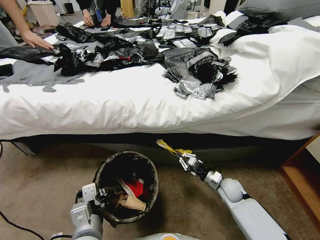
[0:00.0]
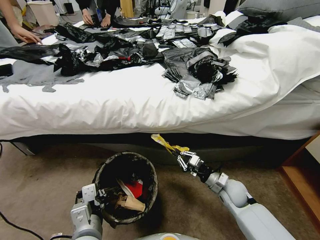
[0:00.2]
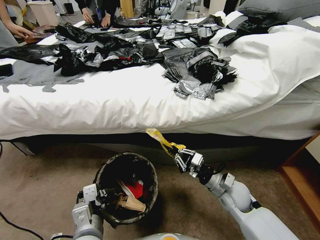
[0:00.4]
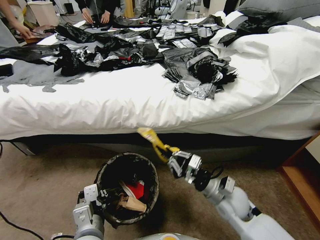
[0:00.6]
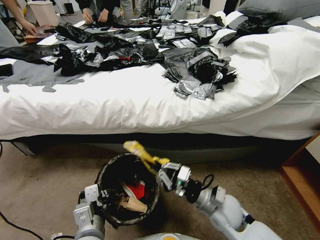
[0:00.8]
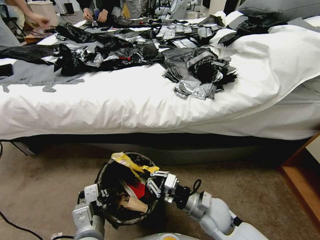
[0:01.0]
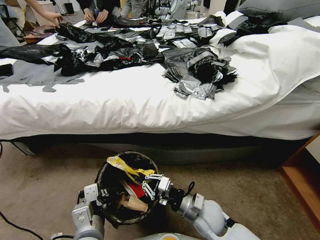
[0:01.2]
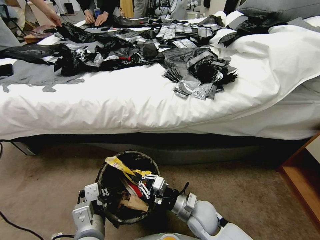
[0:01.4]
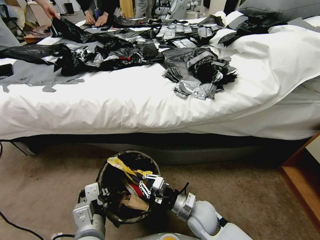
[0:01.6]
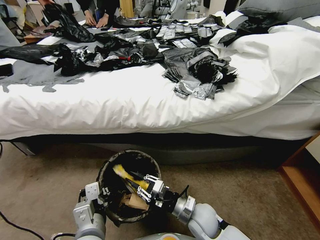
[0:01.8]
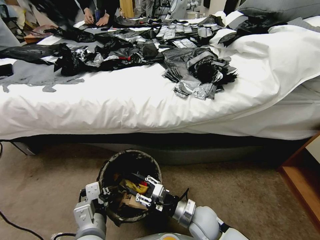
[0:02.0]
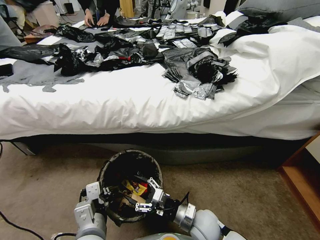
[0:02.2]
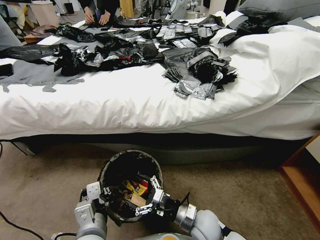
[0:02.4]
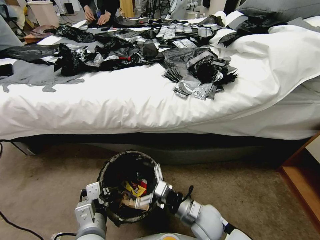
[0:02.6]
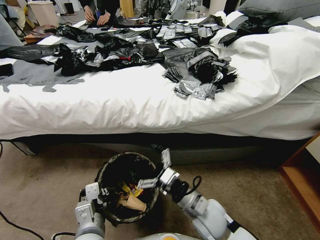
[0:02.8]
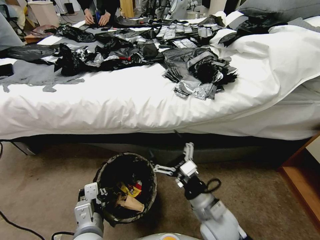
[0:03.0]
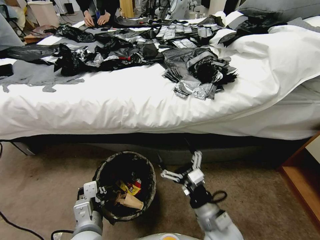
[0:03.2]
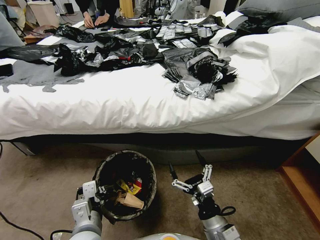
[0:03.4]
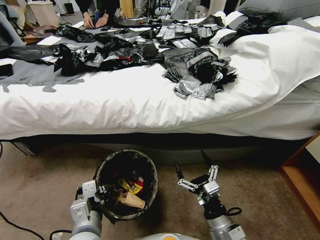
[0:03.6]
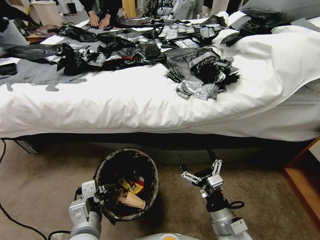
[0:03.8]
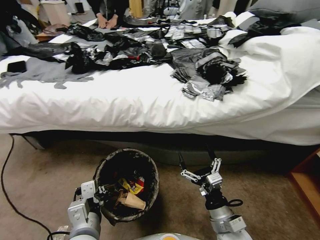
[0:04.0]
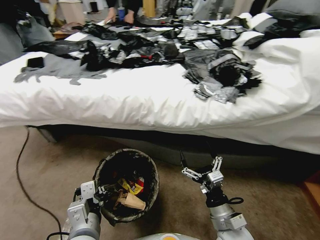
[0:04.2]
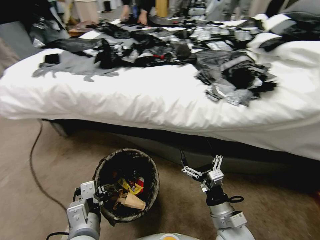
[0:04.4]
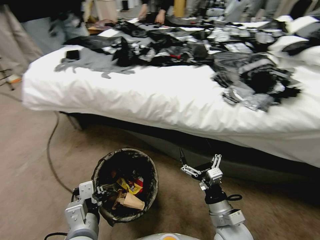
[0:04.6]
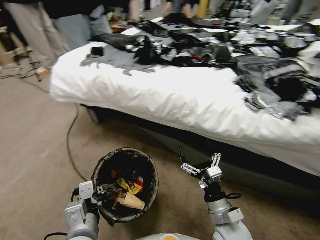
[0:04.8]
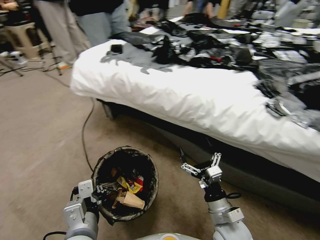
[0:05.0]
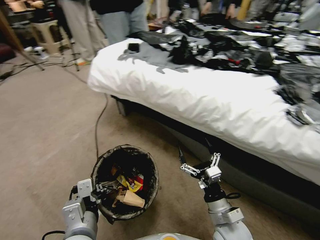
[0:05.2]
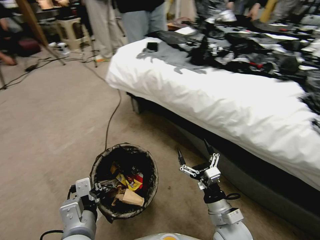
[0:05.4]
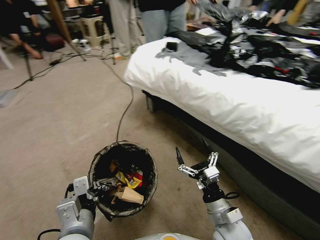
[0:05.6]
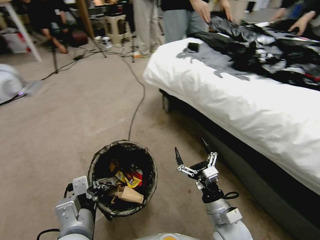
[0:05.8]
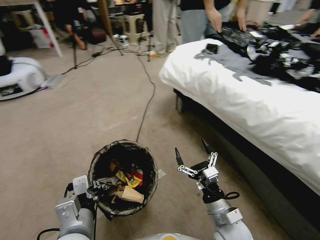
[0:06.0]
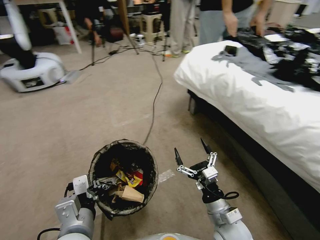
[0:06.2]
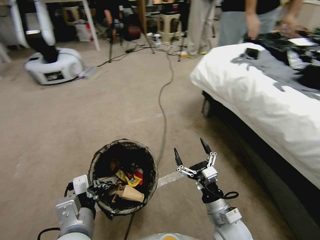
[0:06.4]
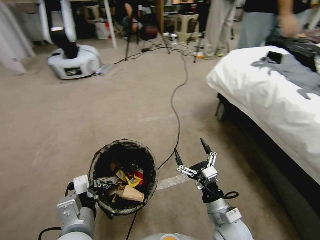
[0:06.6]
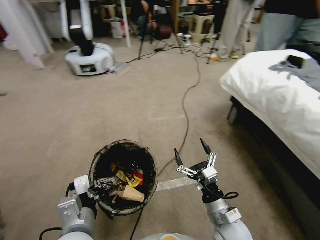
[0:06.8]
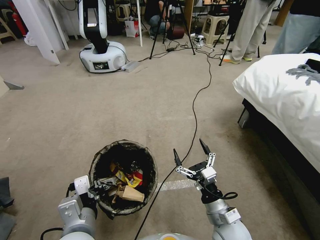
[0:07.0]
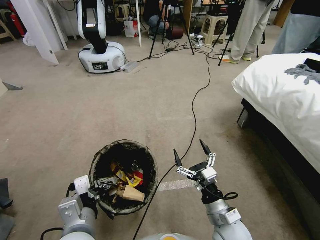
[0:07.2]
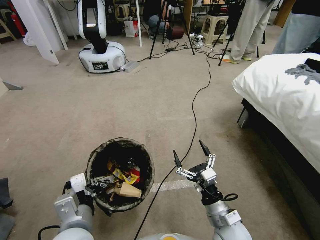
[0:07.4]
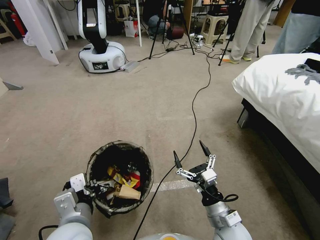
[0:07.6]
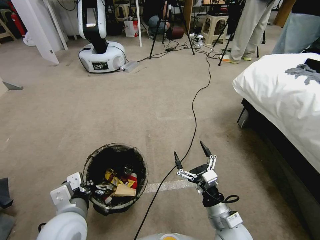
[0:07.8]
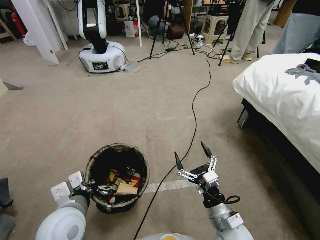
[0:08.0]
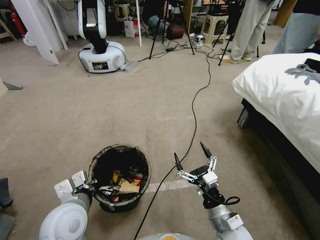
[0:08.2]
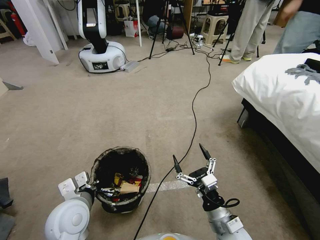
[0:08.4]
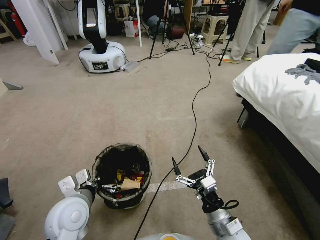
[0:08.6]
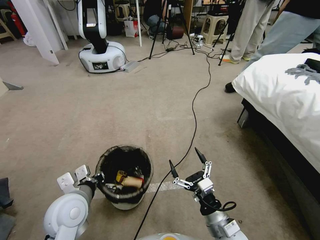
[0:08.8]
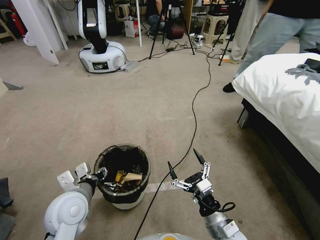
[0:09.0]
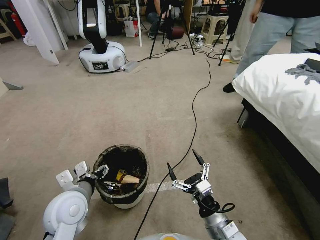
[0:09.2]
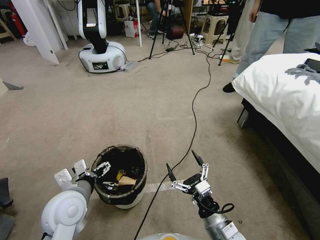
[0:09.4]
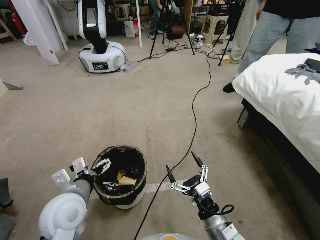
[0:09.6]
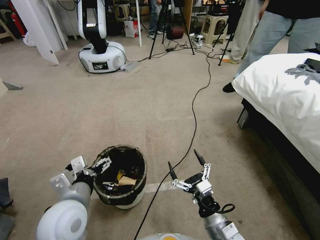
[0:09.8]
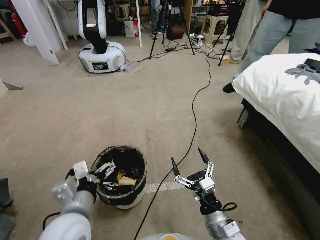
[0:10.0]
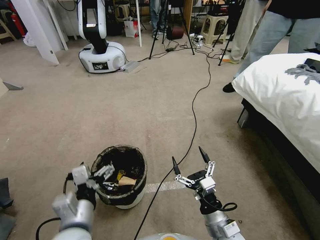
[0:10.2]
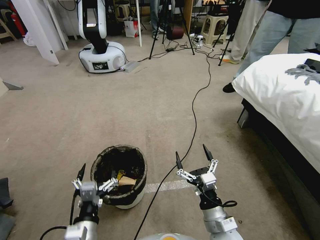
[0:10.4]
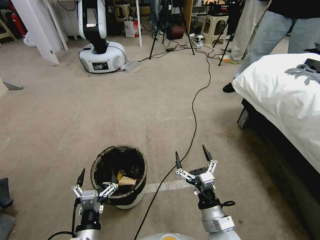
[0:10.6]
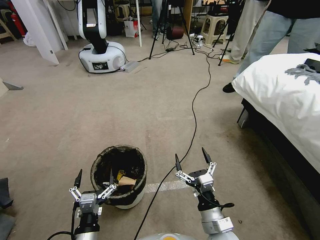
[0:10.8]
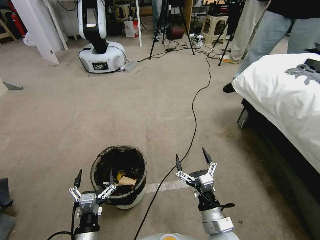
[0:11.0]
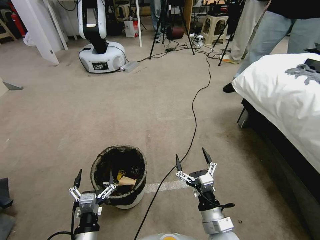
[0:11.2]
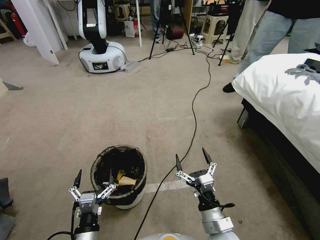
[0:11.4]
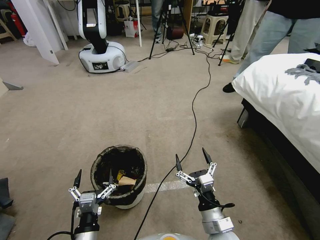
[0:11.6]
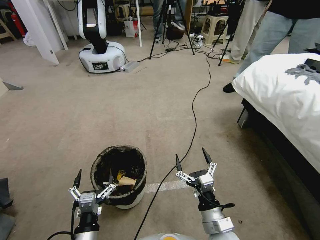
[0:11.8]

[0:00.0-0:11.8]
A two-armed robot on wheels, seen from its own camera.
Task of the whole recording: Pick up the trash bin, then pick up the garbage from the floor and place it into the trash bin.
0:00.0 to 0:01.4: The right gripper goes about 20 cm to the left, backward and upward.
0:01.4 to 0:03.0: The right gripper goes about 10 cm upward, and opens its fingers.
0:03.0 to 0:04.4: The right gripper shifts by about 5 cm.
0:07.4 to 0:08.8: The left gripper goes approximately 10 cm forward and to the left.
0:08.8 to 0:10.4: The left gripper travels backward and downward by roughly 15 cm, and opens its fingers.
0:10.4 to 0:11.8: The left gripper is displaced downward by some 5 cm.

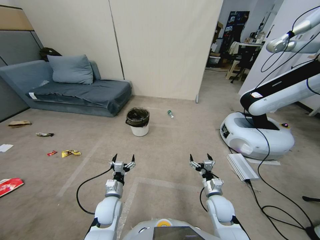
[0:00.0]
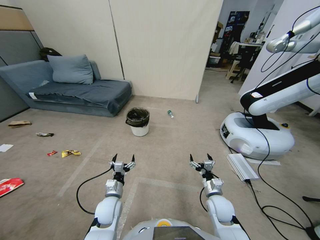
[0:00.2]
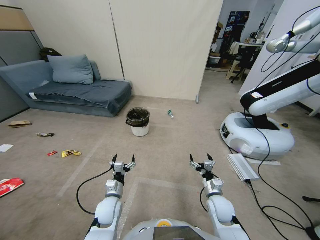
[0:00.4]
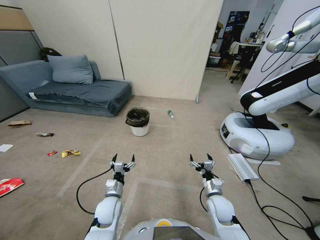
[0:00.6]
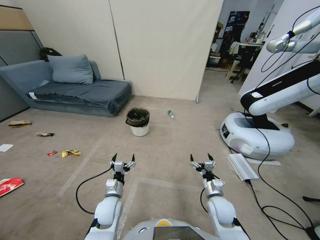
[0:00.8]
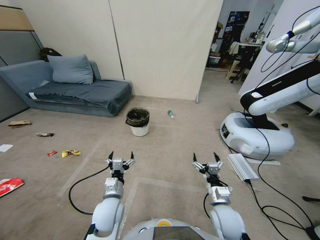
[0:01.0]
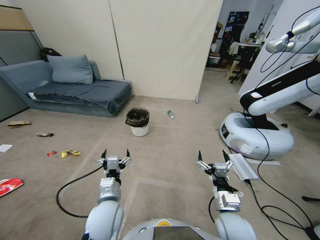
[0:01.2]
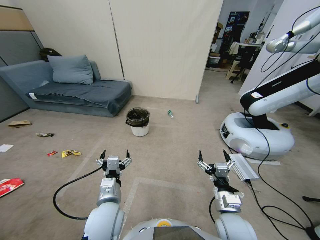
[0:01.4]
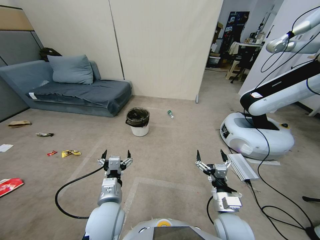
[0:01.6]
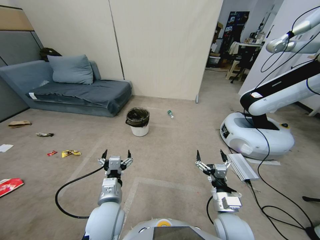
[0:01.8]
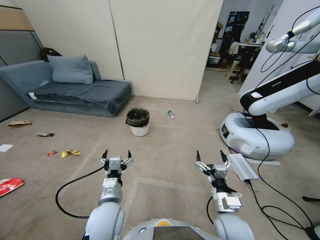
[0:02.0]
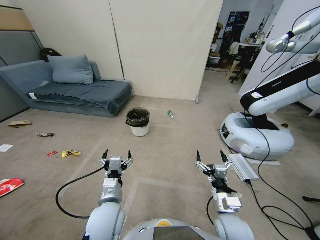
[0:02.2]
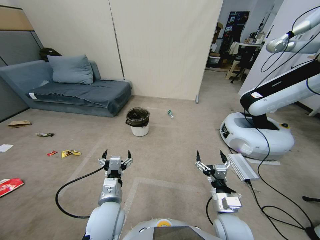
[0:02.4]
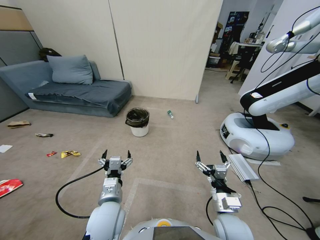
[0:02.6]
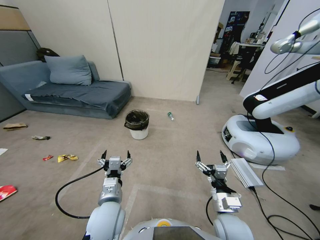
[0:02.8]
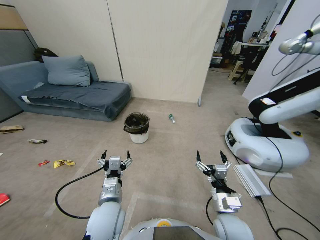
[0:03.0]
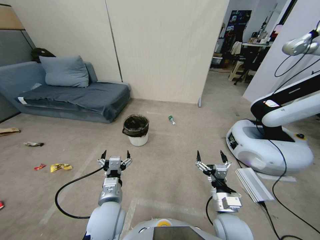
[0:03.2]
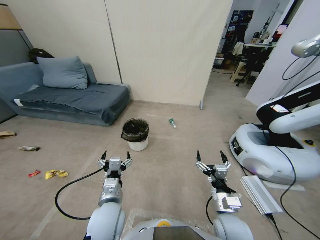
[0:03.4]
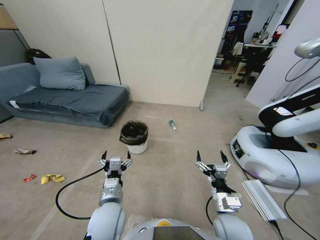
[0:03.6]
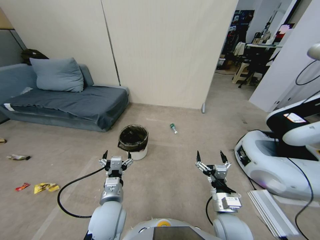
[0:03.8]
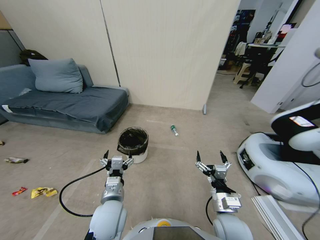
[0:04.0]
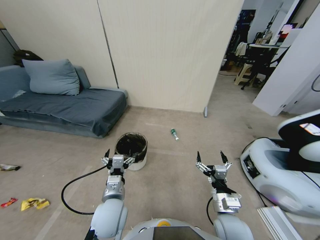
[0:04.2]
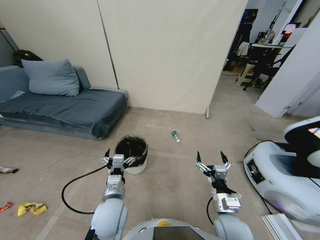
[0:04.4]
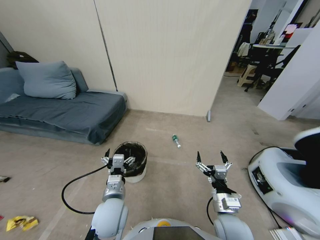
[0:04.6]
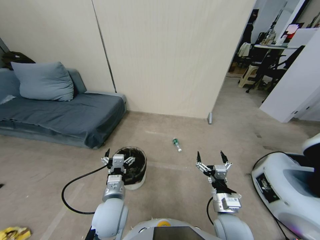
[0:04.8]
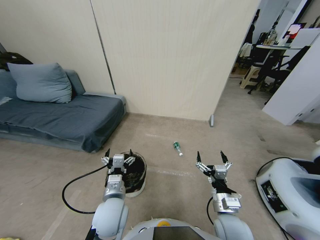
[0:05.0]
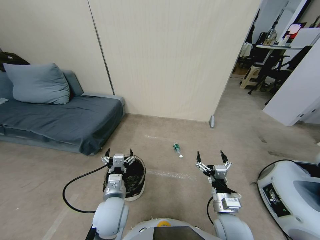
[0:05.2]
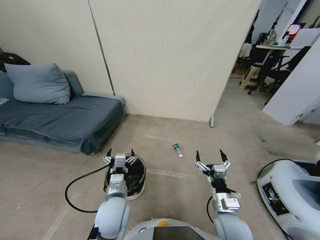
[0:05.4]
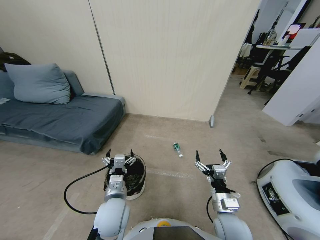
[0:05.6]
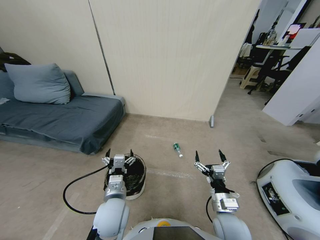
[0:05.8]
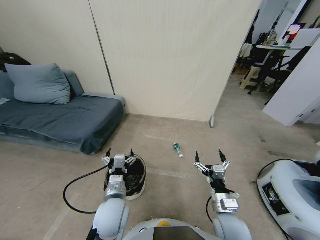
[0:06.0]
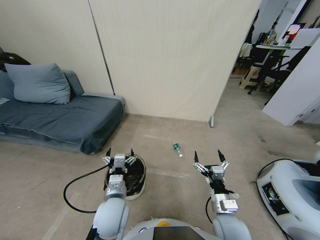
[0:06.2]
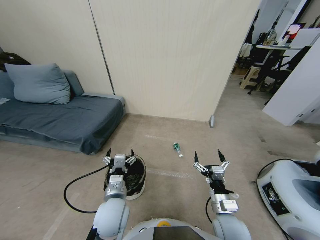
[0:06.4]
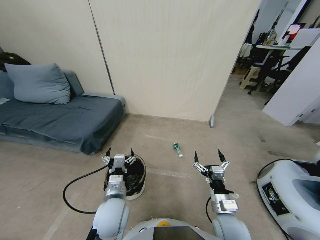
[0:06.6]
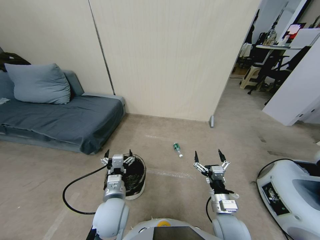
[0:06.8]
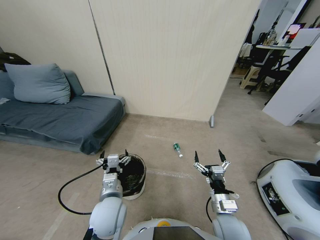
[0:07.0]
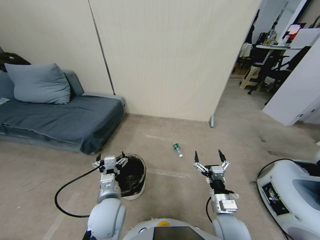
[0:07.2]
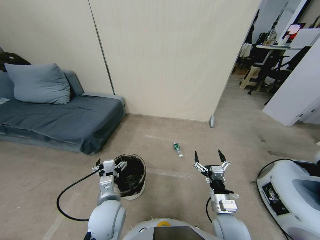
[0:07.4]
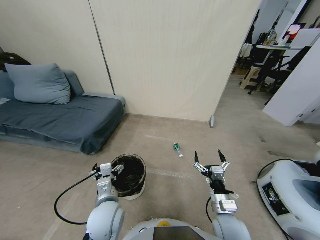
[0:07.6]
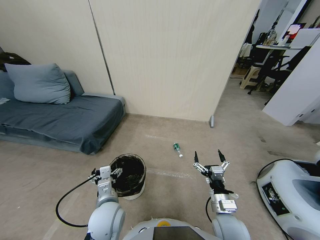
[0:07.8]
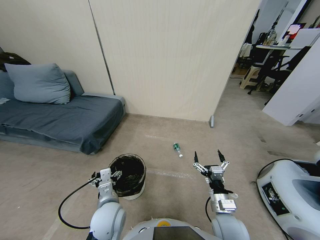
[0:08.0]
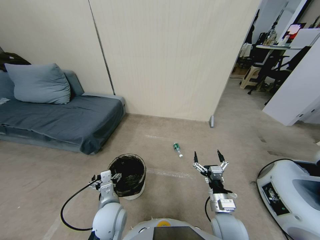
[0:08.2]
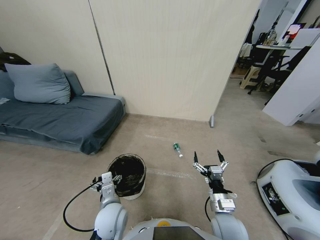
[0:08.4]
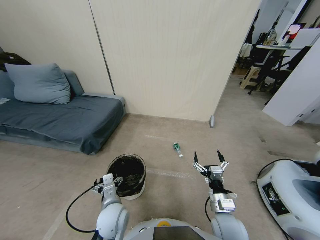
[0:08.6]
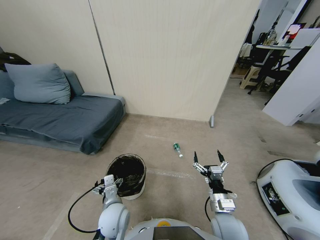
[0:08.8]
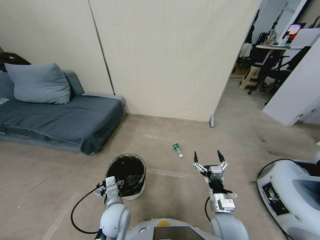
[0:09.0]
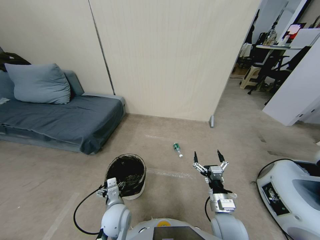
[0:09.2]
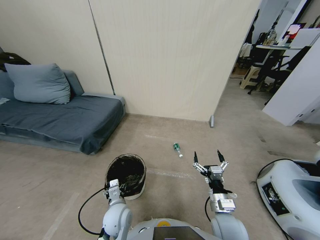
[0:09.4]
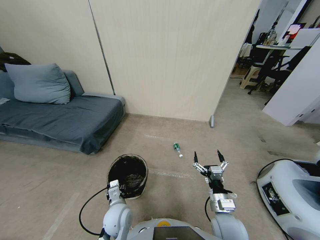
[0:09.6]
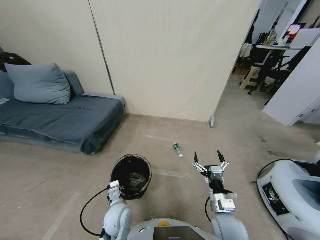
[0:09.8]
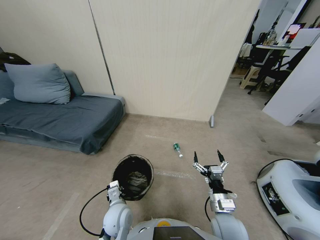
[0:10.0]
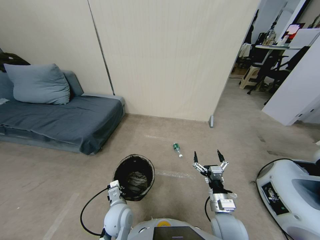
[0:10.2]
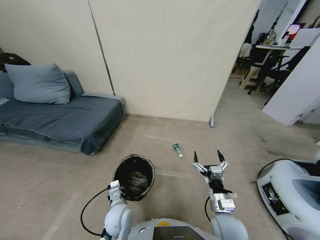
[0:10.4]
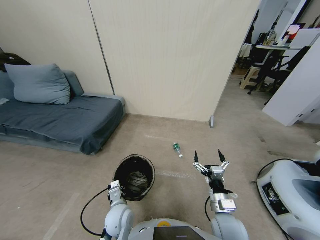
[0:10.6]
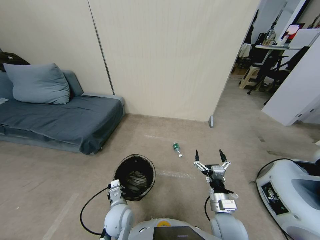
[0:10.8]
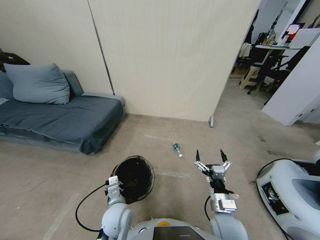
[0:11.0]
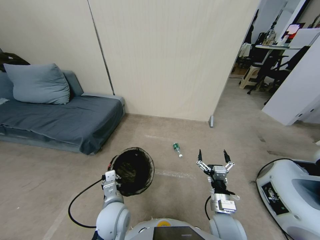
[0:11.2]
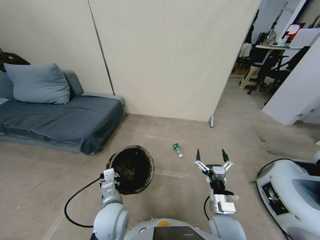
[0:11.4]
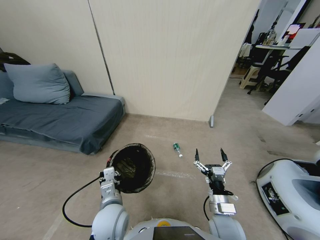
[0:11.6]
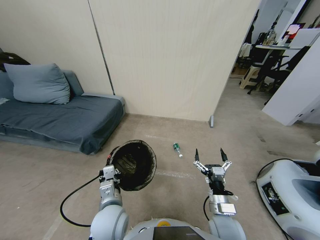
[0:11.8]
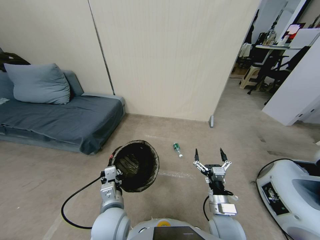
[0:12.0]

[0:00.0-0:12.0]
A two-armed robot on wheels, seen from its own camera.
Task of the whole recording: Pick up the trash bin, then pick up the garbage from the floor and place it into the trash bin.
0:07.6 to 0:09.0: The left gripper travels downward by about 10 cm.
0:09.0 to 0:10.4: The left gripper closes up.
0:10.4 to 0:12.0: The left gripper shifts about 10 cm upward.
